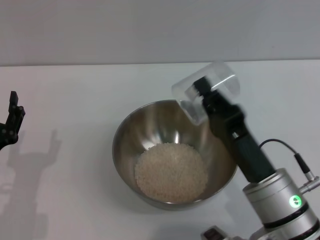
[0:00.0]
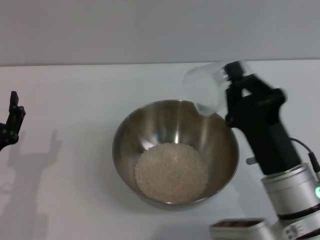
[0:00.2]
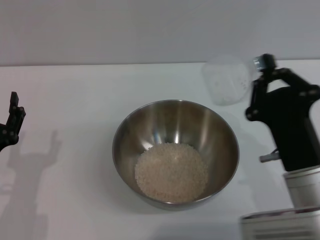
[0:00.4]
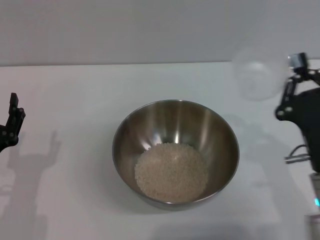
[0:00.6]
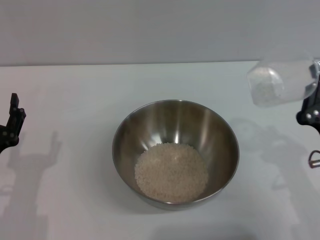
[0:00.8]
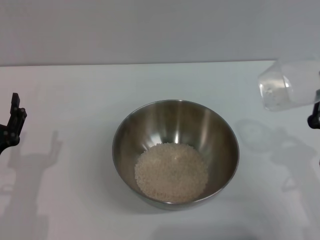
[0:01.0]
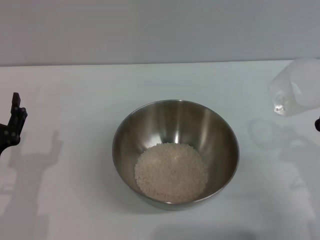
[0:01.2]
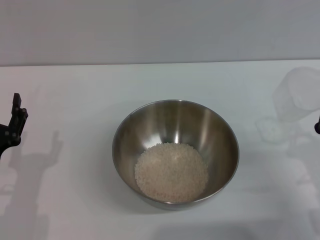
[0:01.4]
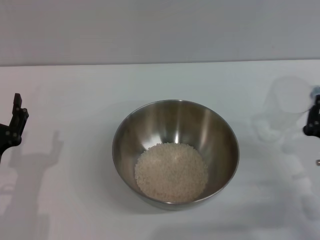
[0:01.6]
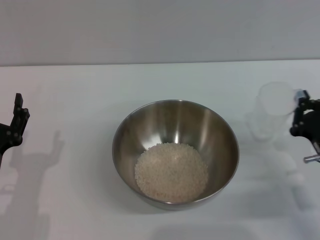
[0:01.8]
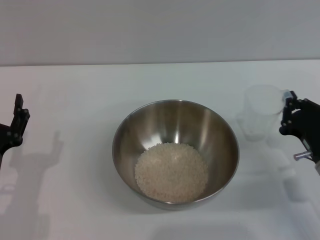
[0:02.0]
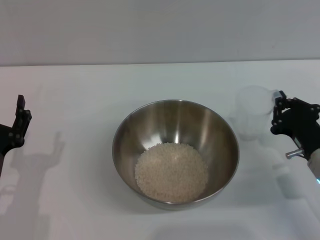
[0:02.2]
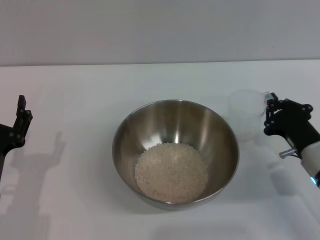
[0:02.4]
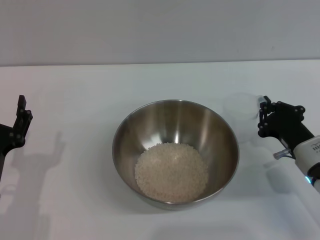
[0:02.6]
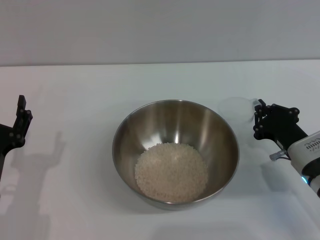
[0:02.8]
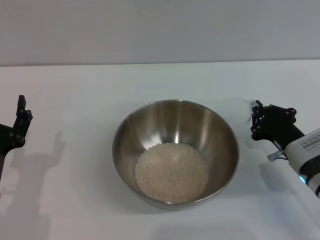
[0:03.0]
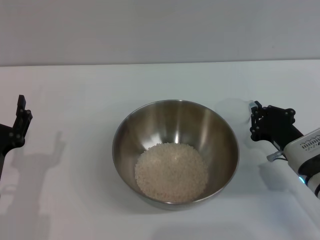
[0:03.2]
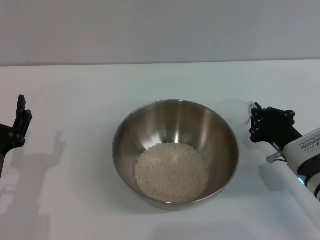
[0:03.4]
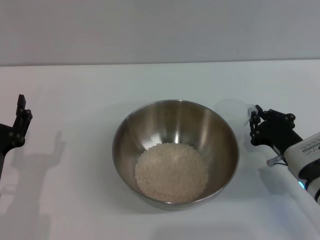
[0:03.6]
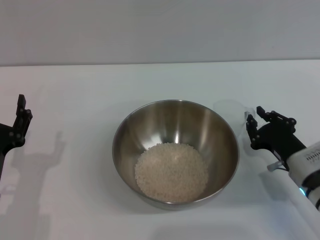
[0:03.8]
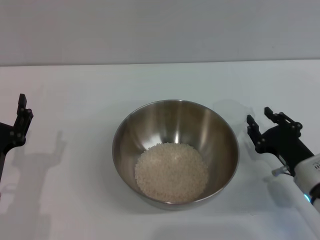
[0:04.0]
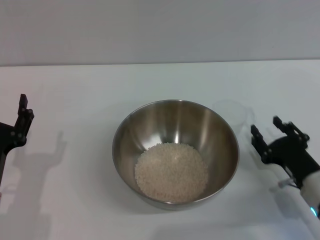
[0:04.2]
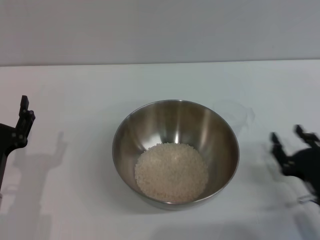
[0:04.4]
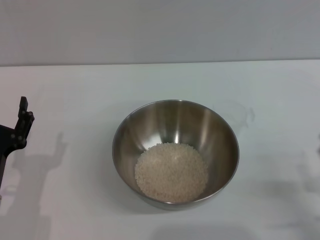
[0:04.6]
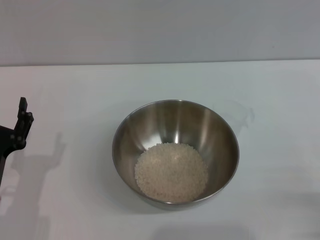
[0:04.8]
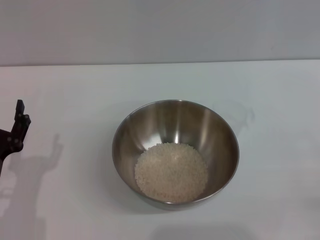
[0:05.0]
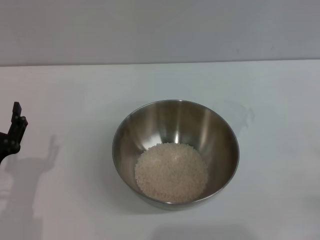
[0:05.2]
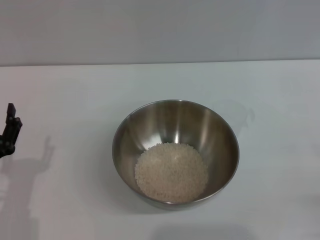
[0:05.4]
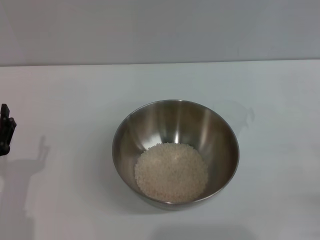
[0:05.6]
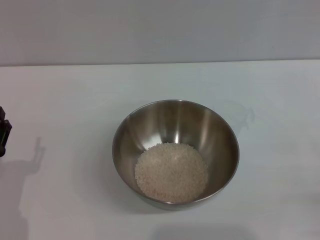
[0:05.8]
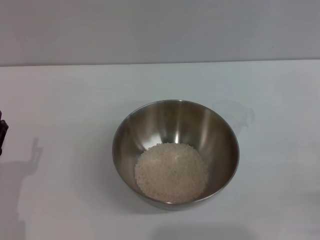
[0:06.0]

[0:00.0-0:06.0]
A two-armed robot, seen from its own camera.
Task of the whole recording: Place the bowl in the middle of the table with one hand and pour the rice from the grain cup into it with the other hand.
Step, 0:00.0 to 0:04.0: Place the cup on the table with the right gripper.
0:00.0 to 0:01.6: The right gripper is displaced to the right by about 15 cm.
0:01.6 to 0:03.0: The right gripper moves forward, about 5 cm.
0:03.0 to 0:04.4: The right gripper is displaced backward by roughly 10 cm, and opens.
0:04.4 to 0:06.0: The right gripper shifts approximately 10 cm to the right and backward.

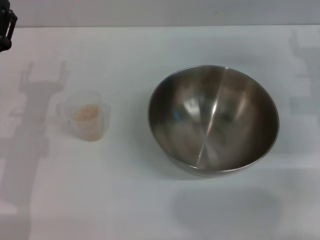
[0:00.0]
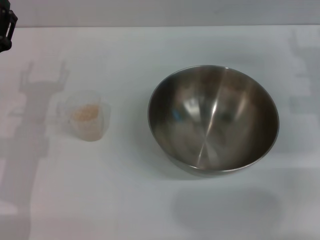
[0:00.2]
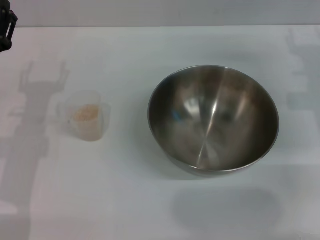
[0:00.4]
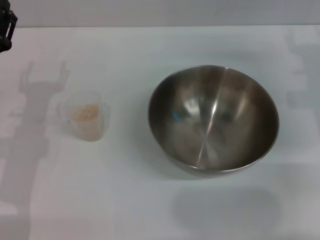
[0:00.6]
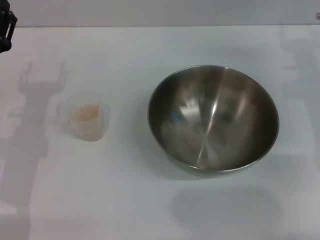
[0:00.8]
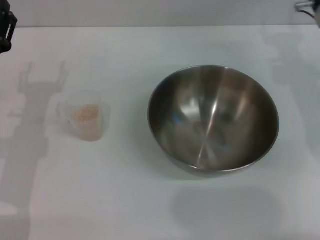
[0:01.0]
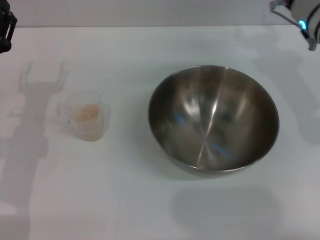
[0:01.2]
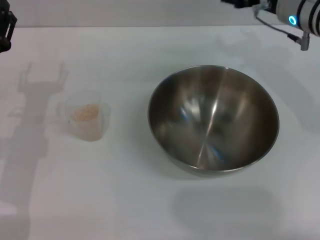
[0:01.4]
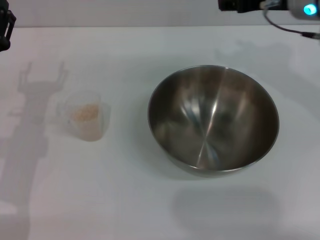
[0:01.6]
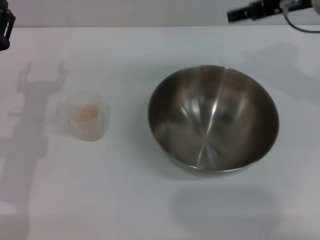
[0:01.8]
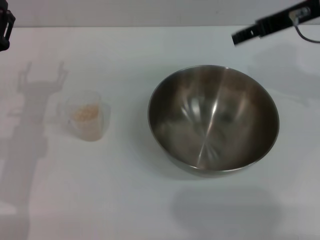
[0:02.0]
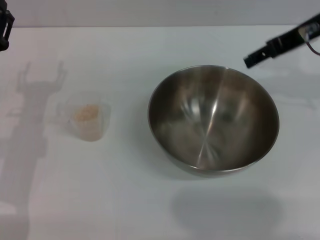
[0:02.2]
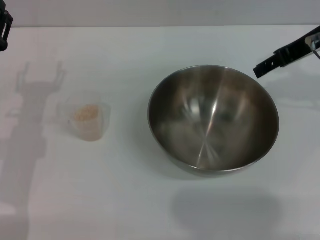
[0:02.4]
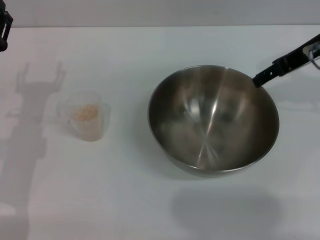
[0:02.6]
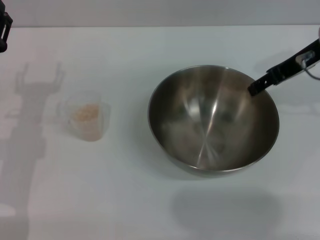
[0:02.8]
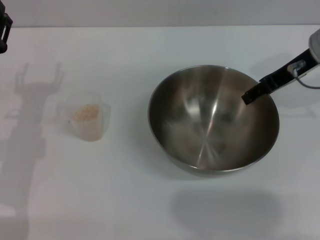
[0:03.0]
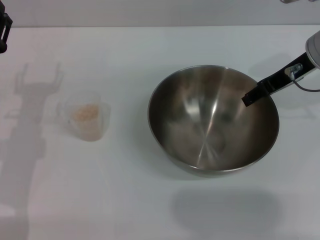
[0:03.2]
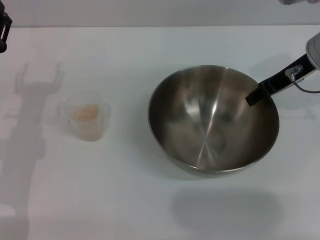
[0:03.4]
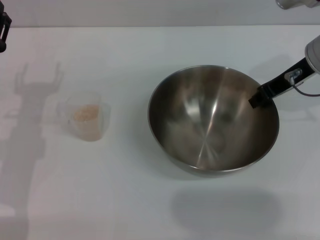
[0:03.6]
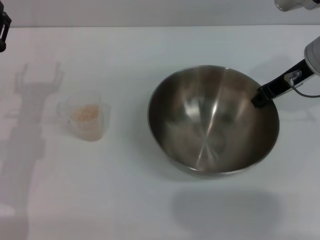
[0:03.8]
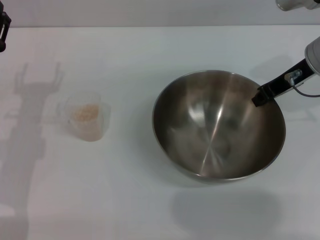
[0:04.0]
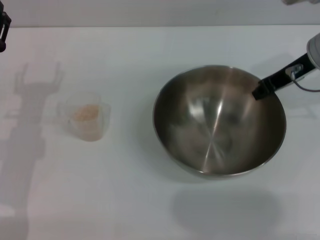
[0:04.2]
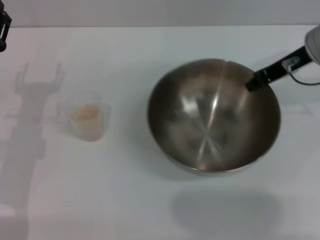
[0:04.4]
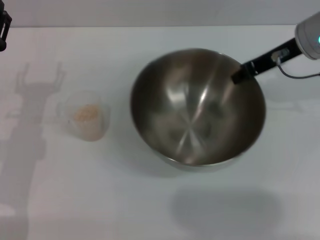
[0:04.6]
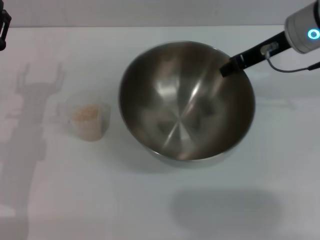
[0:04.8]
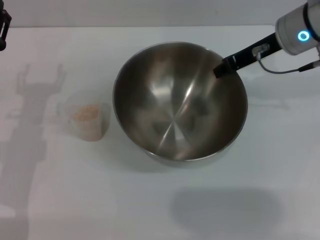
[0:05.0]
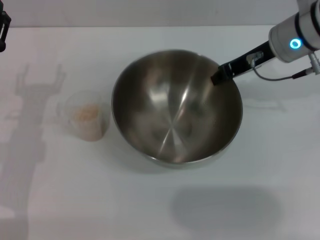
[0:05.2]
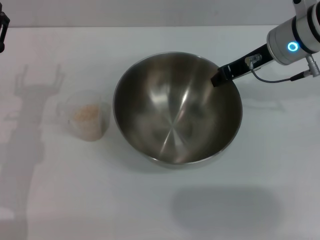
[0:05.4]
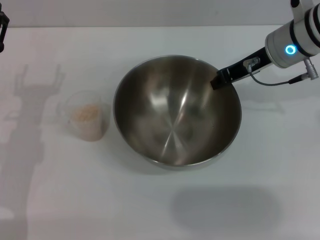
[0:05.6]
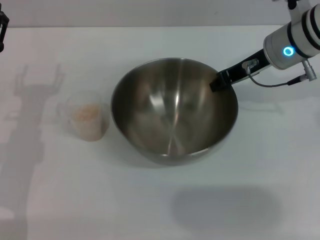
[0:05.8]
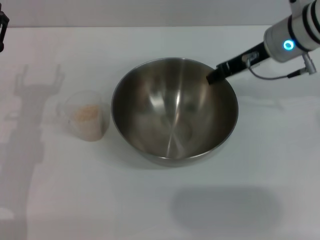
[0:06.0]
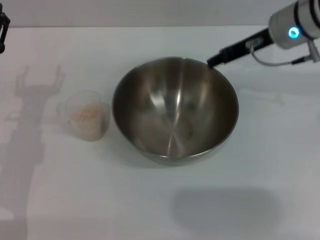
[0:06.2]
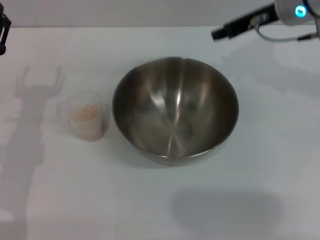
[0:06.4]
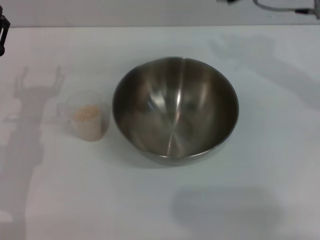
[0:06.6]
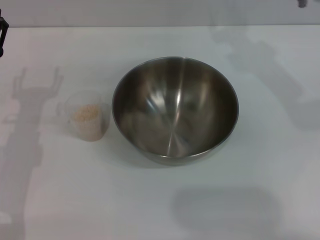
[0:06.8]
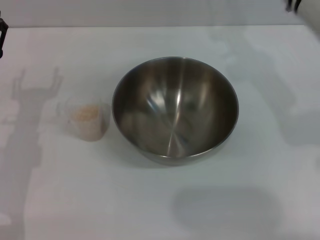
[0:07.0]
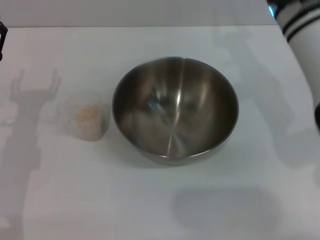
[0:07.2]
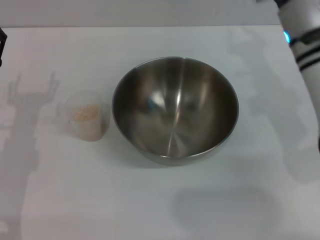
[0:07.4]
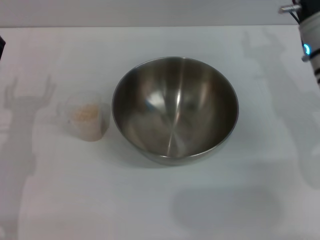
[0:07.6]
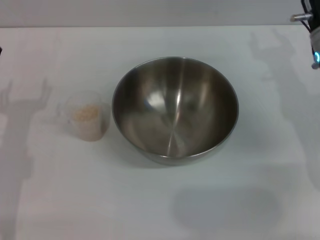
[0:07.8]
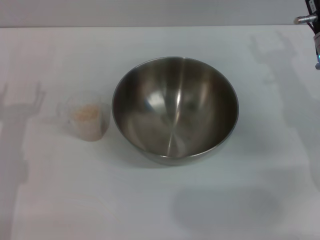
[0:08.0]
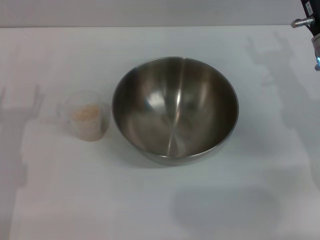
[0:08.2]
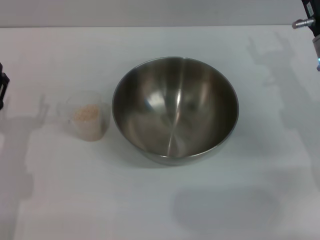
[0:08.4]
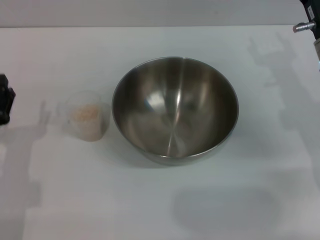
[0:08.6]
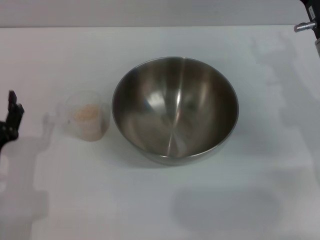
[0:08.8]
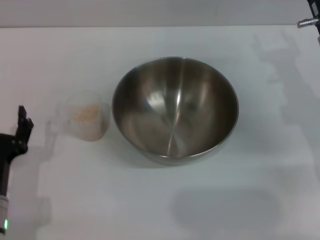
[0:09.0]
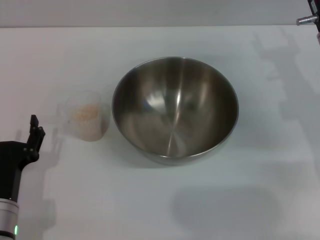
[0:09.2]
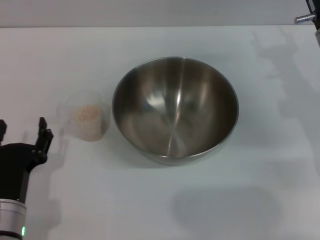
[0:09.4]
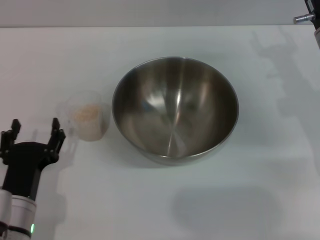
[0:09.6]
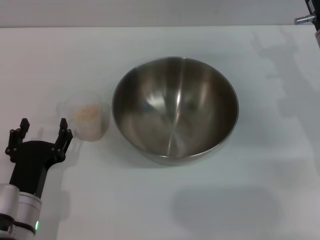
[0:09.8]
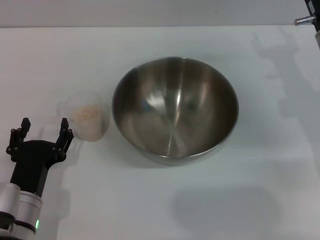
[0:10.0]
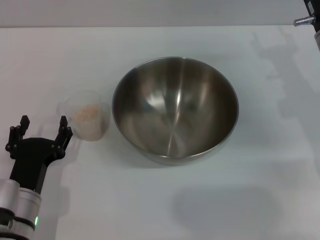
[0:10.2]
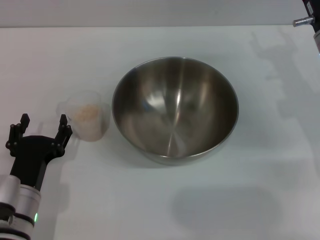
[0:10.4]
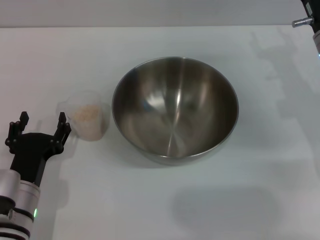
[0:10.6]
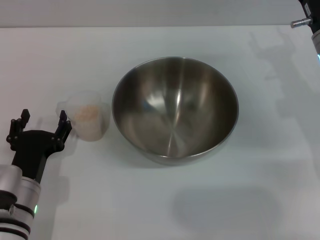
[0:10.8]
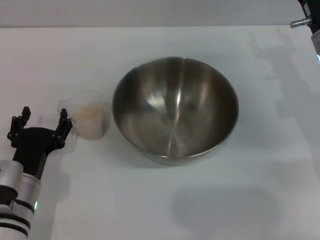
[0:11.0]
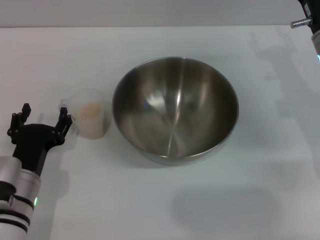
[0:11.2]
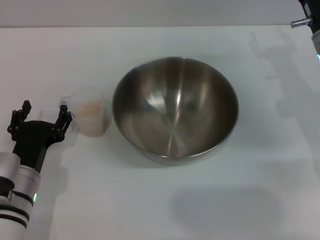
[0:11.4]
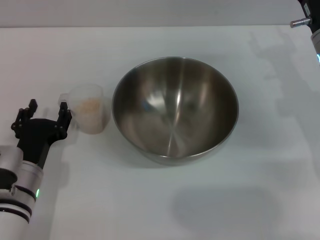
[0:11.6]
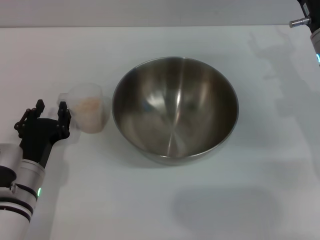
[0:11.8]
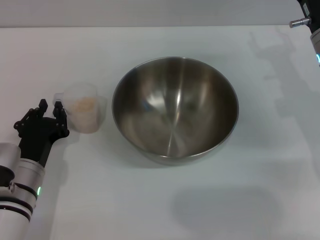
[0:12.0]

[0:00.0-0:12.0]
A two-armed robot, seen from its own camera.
Task of the whole recording: Place the bowl in the middle of the table with one hand and pour the rice from the grain cup into it with the other hand.
Step, 0:00.0 to 0:04.4: Pick up the bowl with the right gripper.
Step, 0:04.6 to 0:06.2: Place the bowl in the center of view with the right gripper.
0:00.0 to 0:01.6: The right gripper moves upward and to the left, some 15 cm.
0:03.0 to 0:04.4: The right gripper closes its fingers.
0:06.0 to 0:07.6: The right gripper shifts by approximately 5 cm, and opens.
0:07.6 to 0:09.0: The left gripper shifts approximately 10 cm backward, while the right gripper opens up.
0:09.0 to 0:10.4: The grippers make only small movements.
0:10.4 to 0:12.0: The grippers make only small movements.

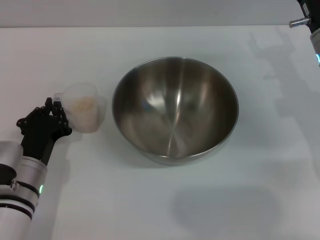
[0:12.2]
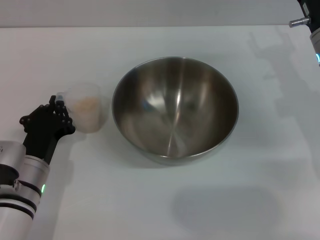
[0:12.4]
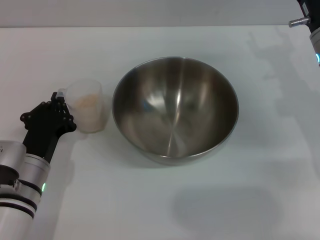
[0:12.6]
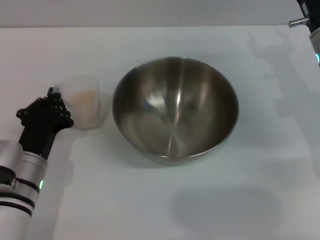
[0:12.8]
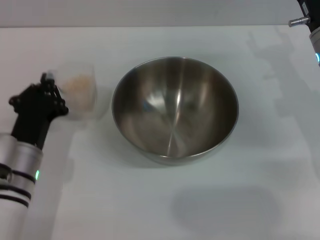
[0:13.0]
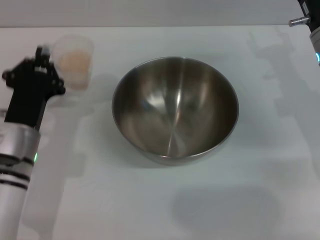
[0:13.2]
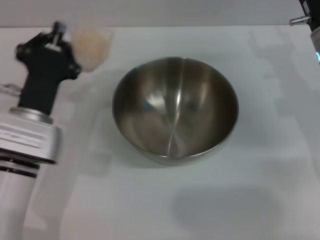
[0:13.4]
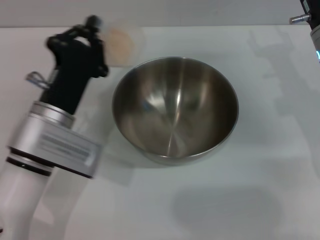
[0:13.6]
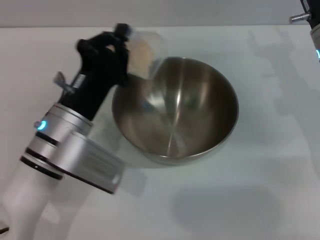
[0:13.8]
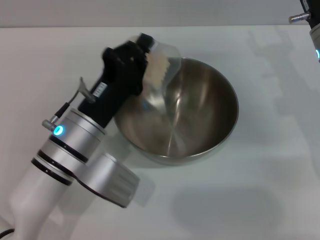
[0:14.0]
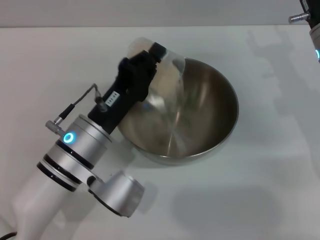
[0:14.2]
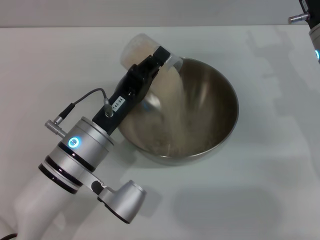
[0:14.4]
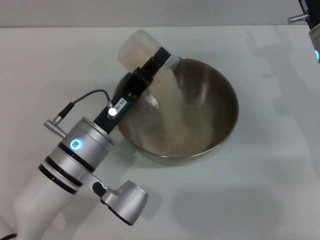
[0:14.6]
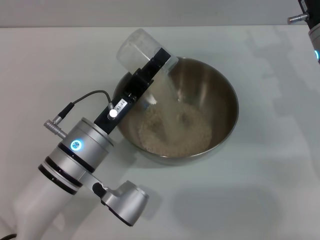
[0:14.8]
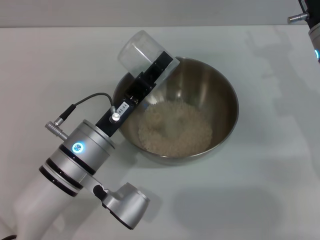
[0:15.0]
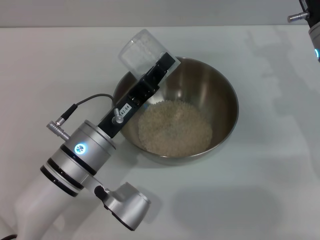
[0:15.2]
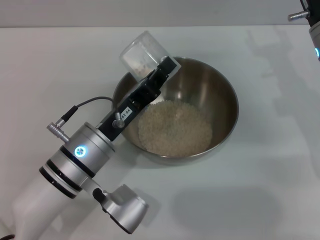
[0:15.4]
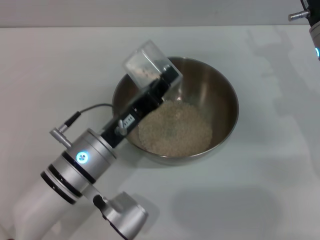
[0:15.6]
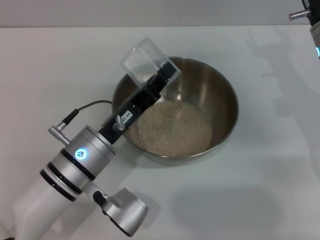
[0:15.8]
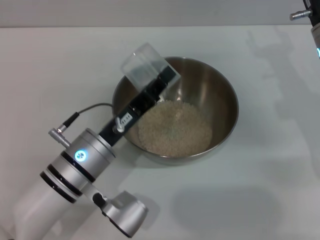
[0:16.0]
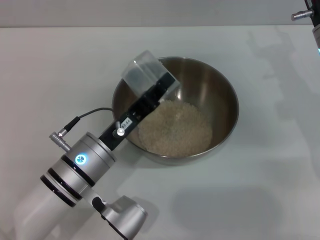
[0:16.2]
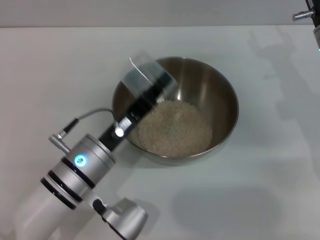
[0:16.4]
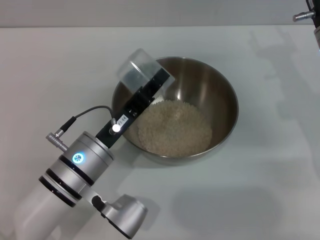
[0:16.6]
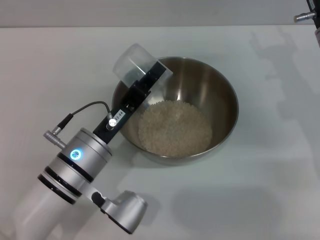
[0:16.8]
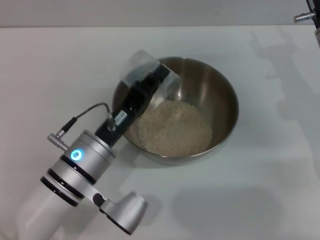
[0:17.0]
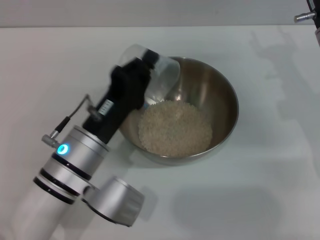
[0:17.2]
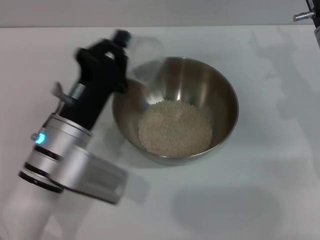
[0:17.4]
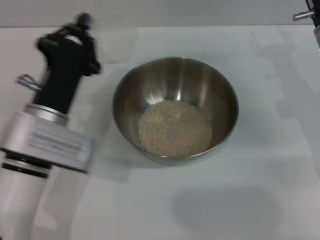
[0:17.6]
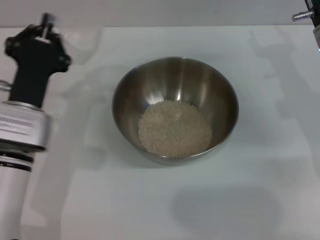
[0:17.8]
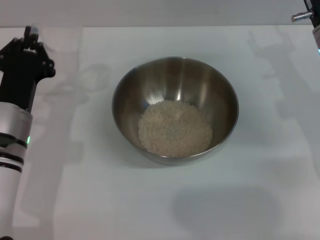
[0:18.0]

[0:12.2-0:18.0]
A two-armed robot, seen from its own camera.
Task of the whole recording: Place the bowl in the middle of the table with one hand and pour the rice from the grain cup into it with the other hand.
Step, 0:13.0 to 0:15.2: Pour the rice from the cup into the bowl with the left gripper.
0:12.2 to 0:13.6: The left gripper moves upward, some 5 cm.
0:15.0 to 0:16.6: The grippers make only small movements.
0:16.6 to 0:18.0: The left gripper moves to the left, approximately 10 cm.
